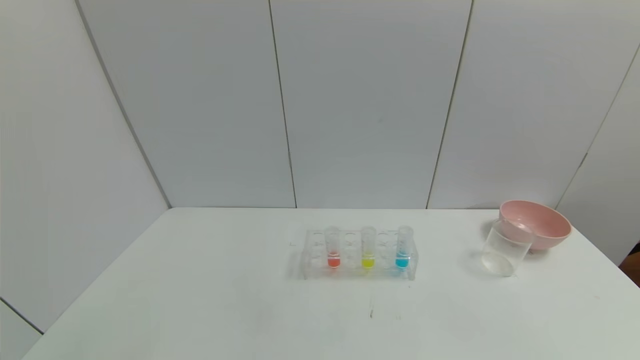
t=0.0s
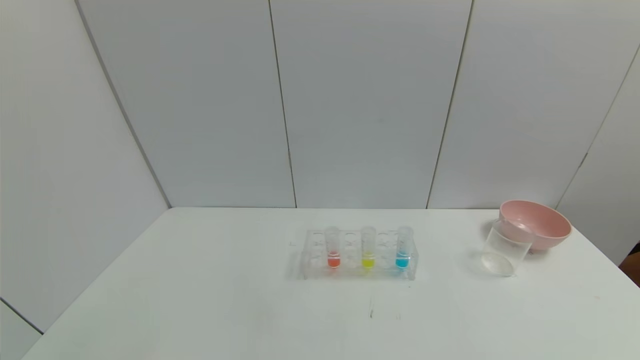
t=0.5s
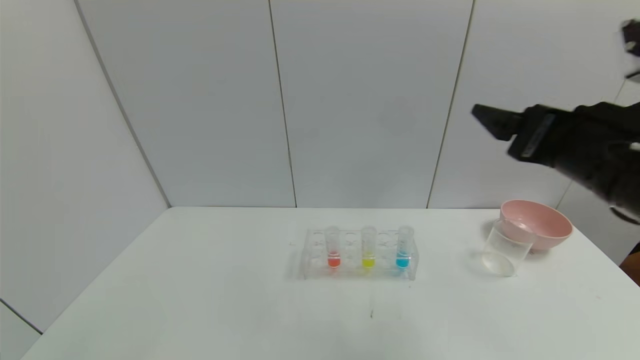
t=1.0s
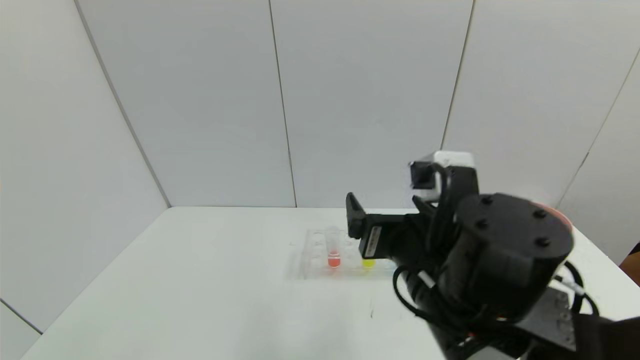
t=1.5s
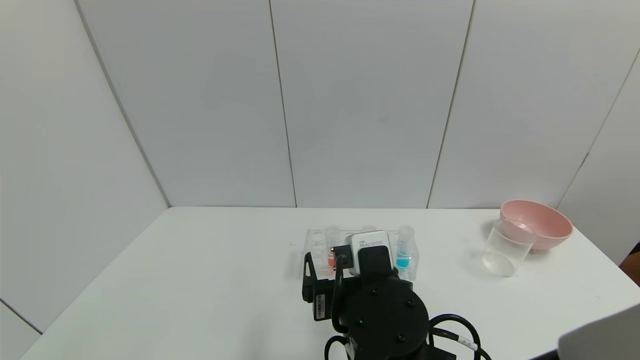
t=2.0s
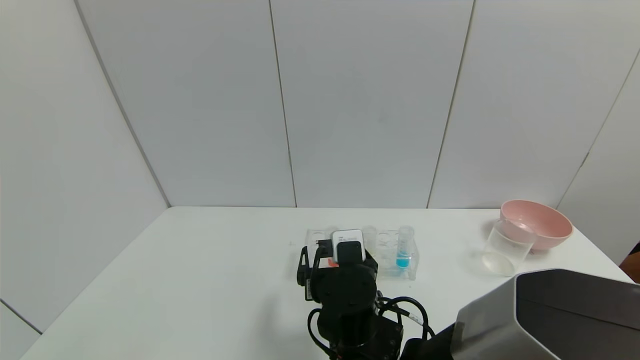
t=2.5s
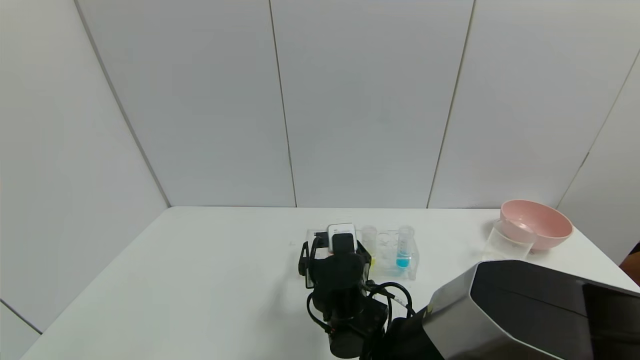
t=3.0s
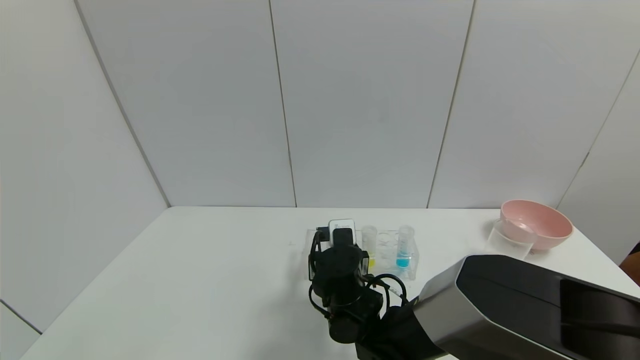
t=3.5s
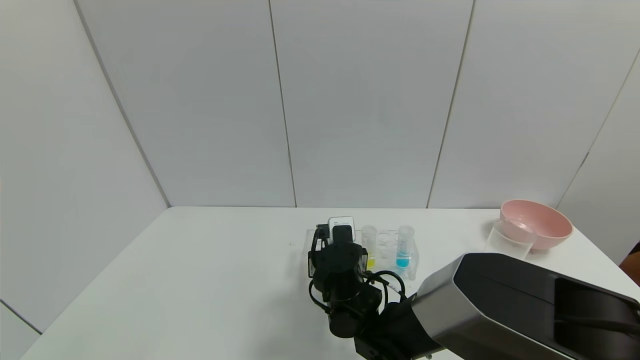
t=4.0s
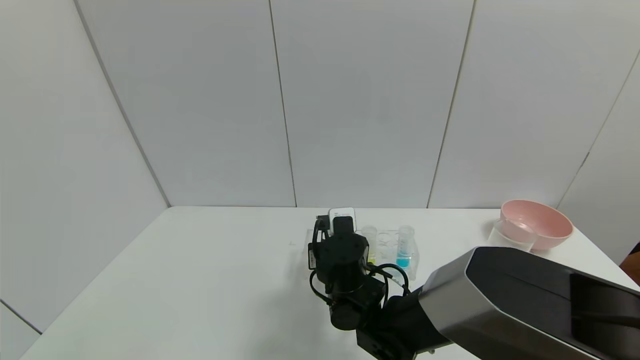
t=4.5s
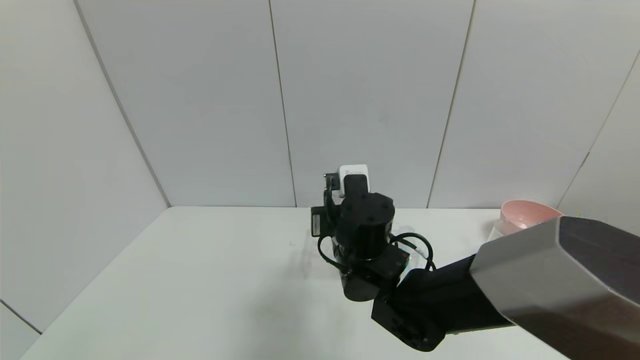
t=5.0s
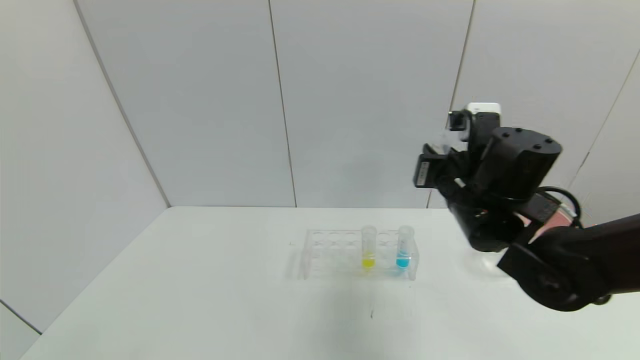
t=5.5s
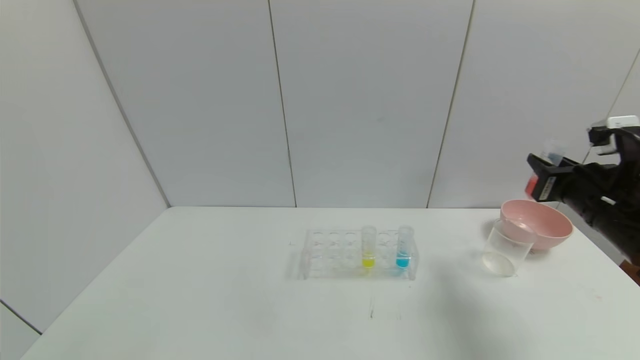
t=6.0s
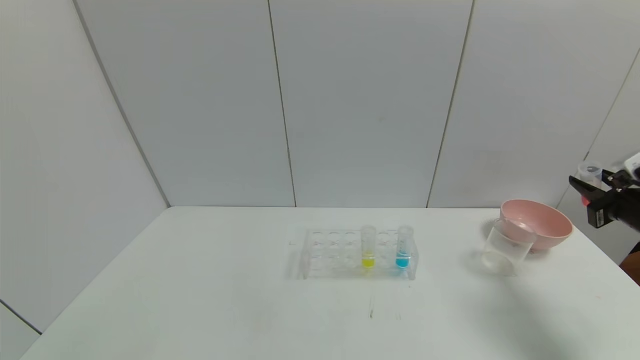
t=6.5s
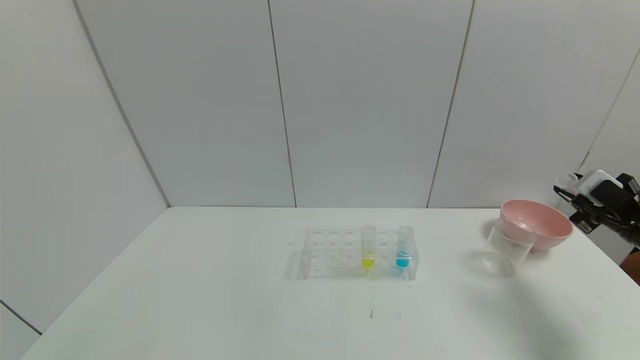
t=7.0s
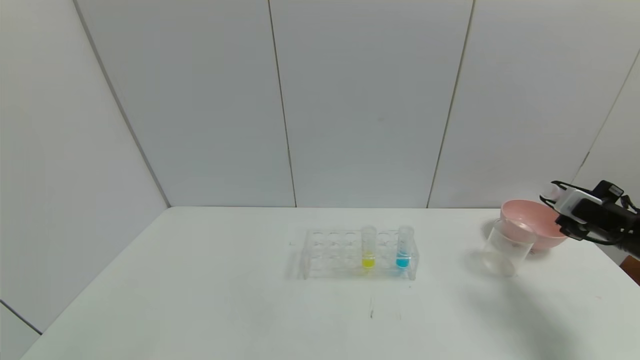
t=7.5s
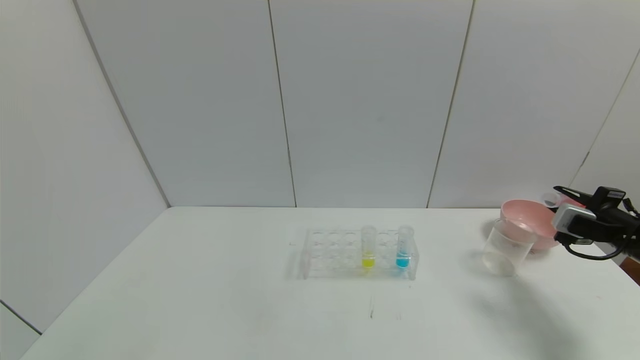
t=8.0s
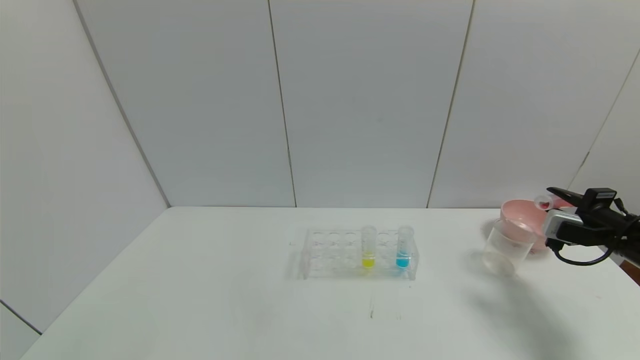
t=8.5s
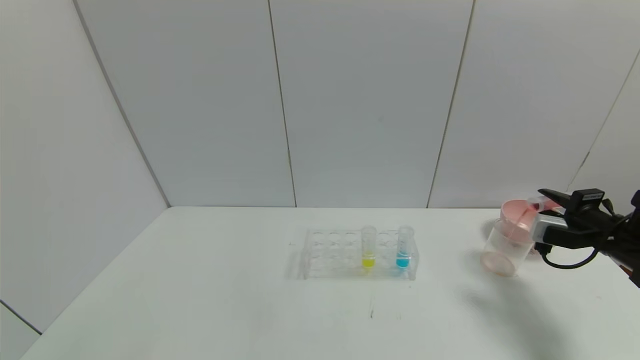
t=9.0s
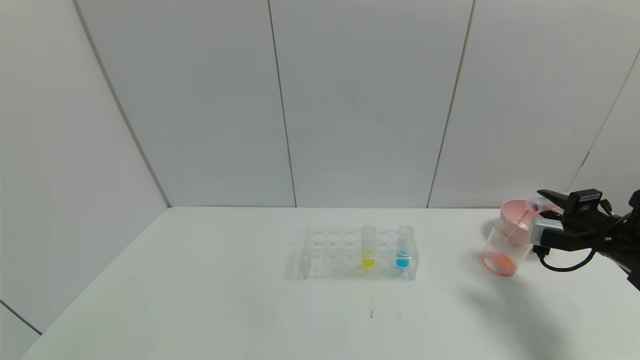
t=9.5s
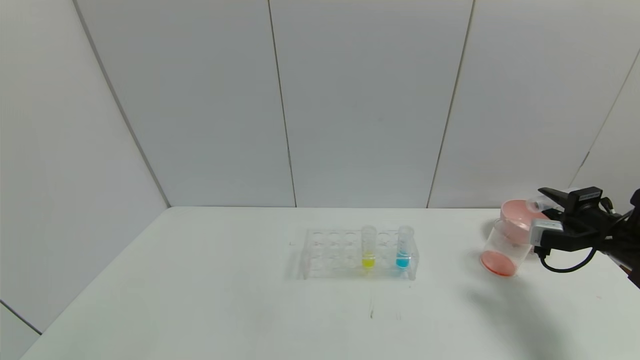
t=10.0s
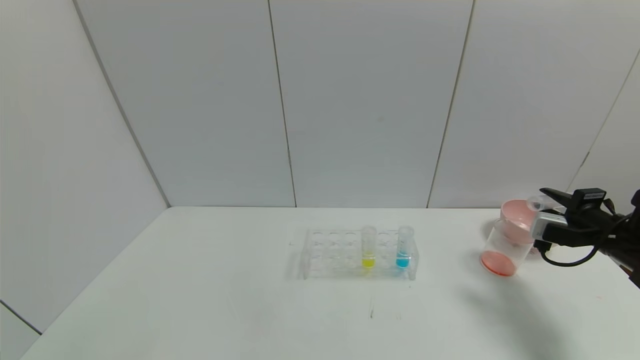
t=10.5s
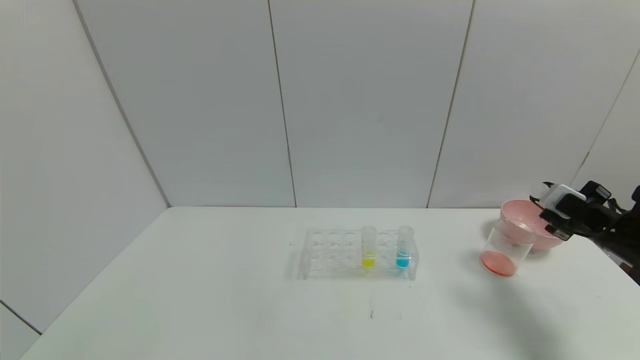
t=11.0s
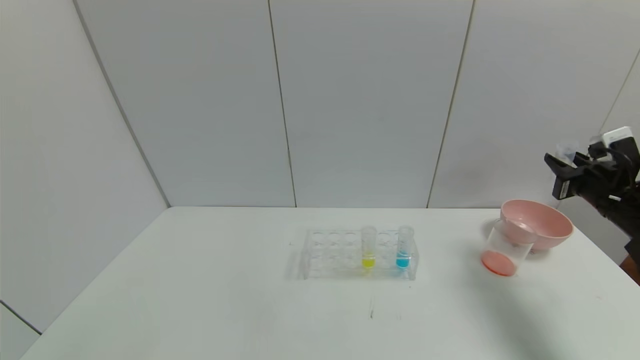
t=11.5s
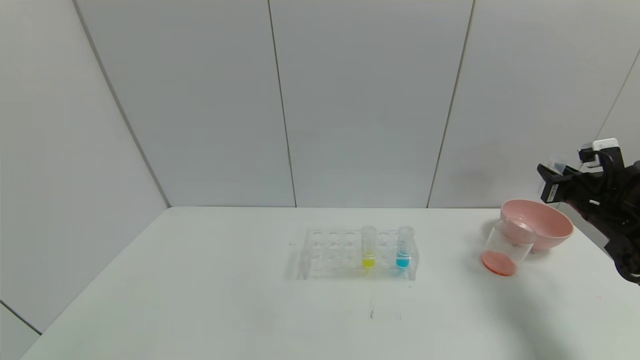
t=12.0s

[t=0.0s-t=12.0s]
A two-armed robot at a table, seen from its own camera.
Task of the whole recording: pick up the test tube with yellow pigment and the test tube with red pigment by grippers and pour them into the beaker.
Step, t=0.0s to t=5.5s: Pick up the test tube containing the red reagent with right gripper.
Step, t=6.0s to t=11.5s: Pour the red reagent into the graduated cylinder with right gripper.
t=0.0s to t=2.0s: The right gripper shifts about 40 cm to the left and forward.
t=2.0s to t=4.0s: The right gripper moves forward and downward, approximately 15 cm, and closes up.
t=4.0s to t=6.0s: The right gripper moves to the right and upward, approximately 40 cm.
t=6.0s to t=8.0s: The right gripper heads to the right and downward, covering approximately 10 cm.
t=8.0s to t=10.0s: The grippers move only a little.
t=10.0s to t=12.0s: The right gripper moves approximately 5 cm.

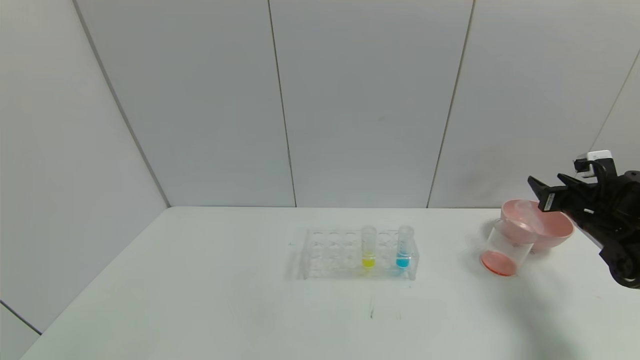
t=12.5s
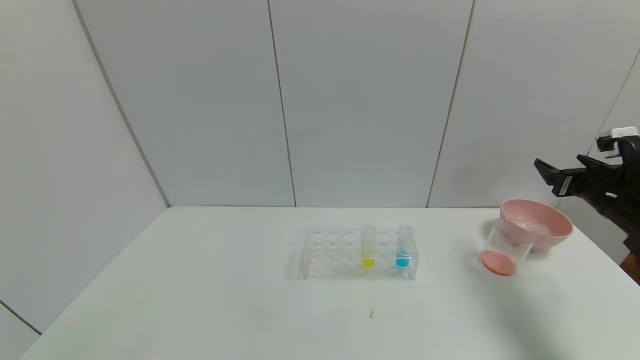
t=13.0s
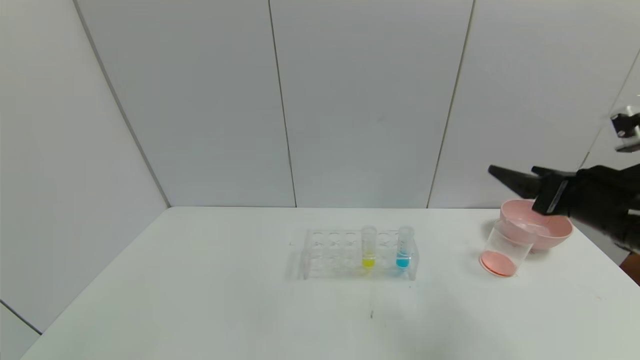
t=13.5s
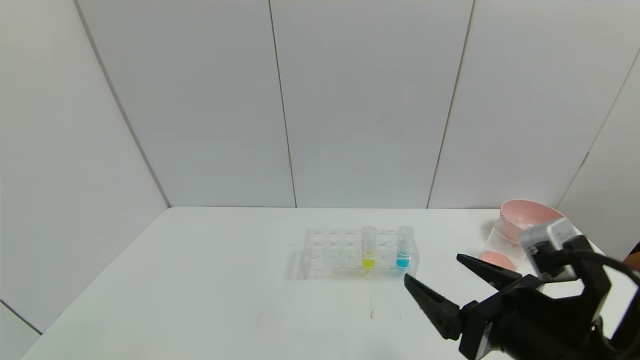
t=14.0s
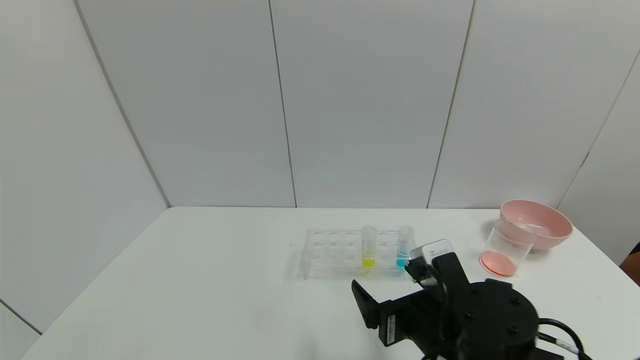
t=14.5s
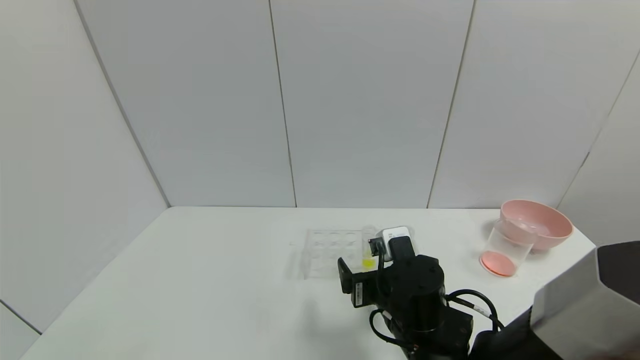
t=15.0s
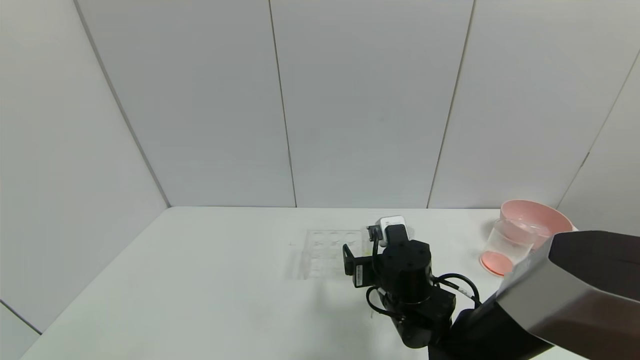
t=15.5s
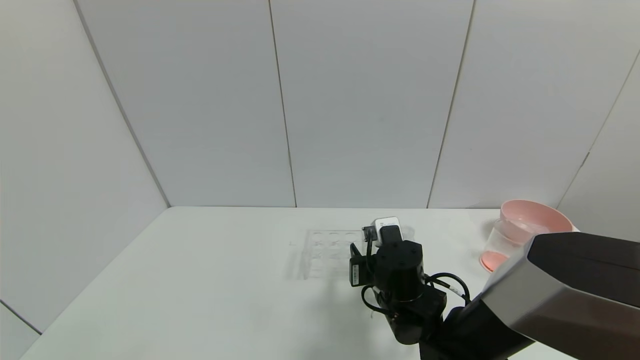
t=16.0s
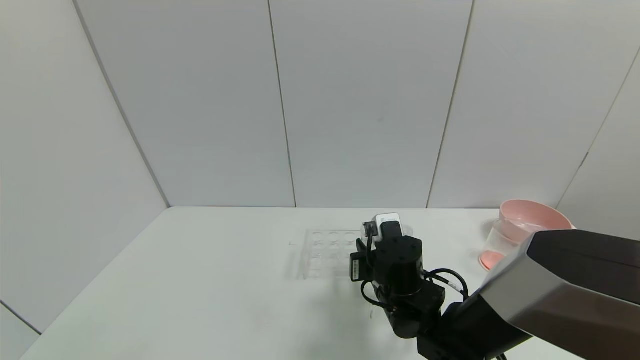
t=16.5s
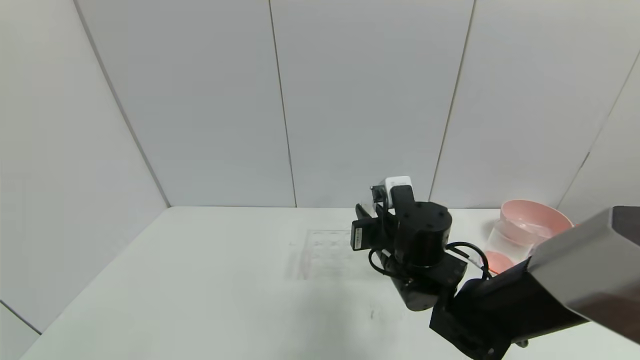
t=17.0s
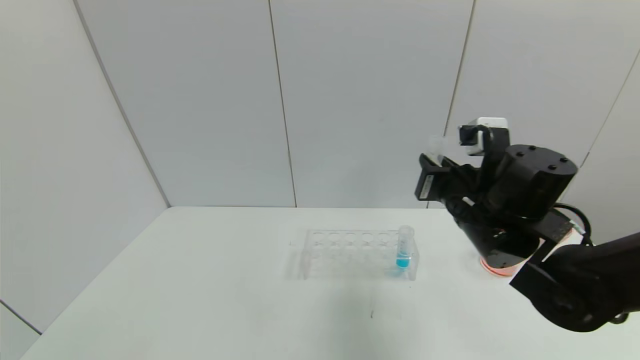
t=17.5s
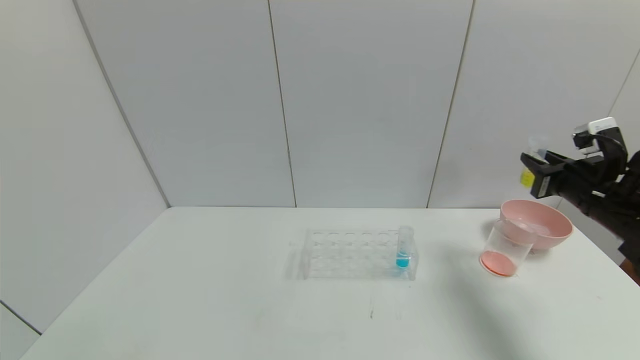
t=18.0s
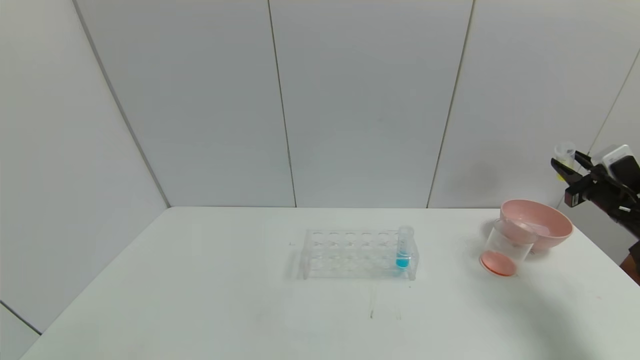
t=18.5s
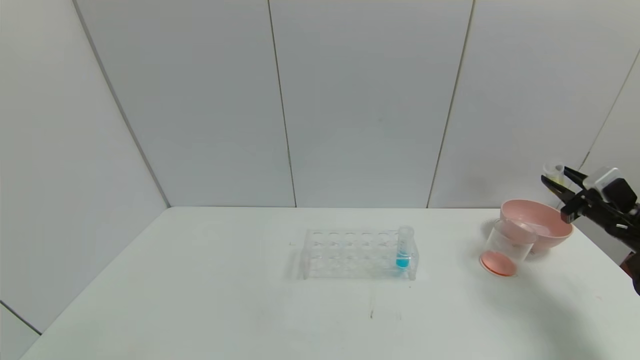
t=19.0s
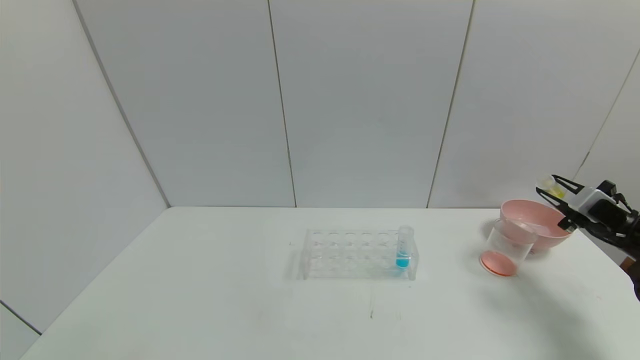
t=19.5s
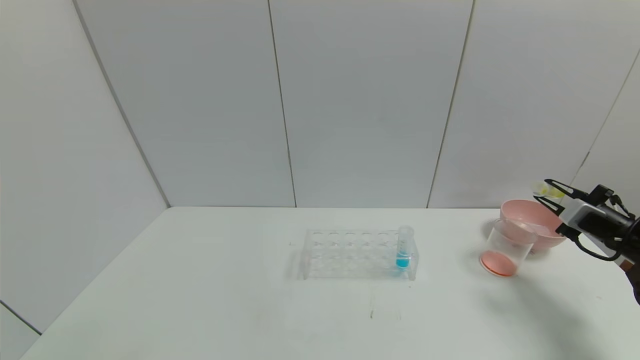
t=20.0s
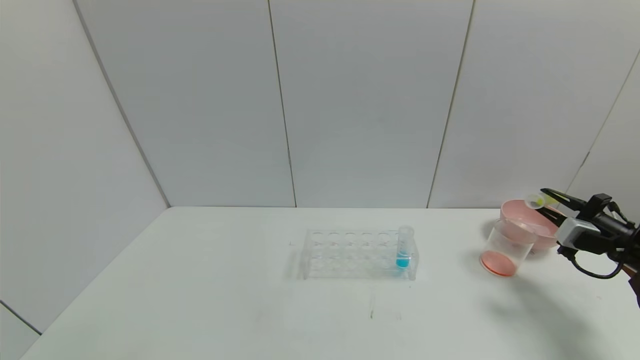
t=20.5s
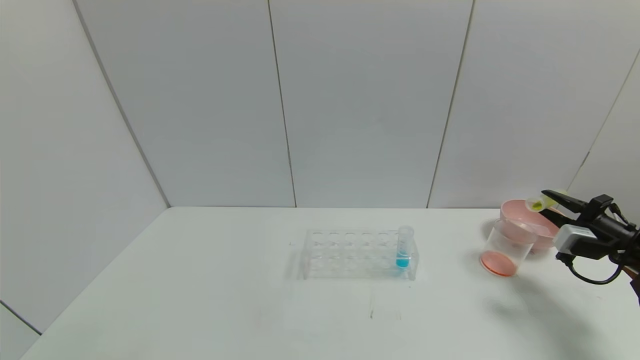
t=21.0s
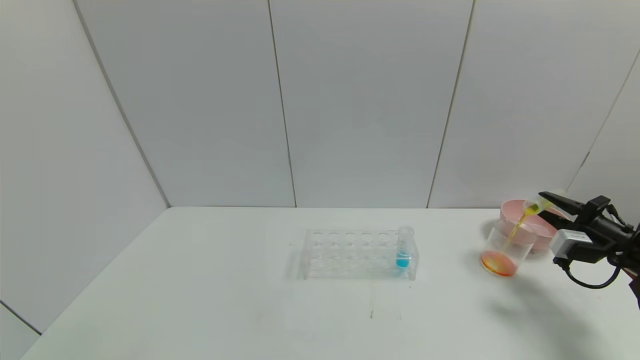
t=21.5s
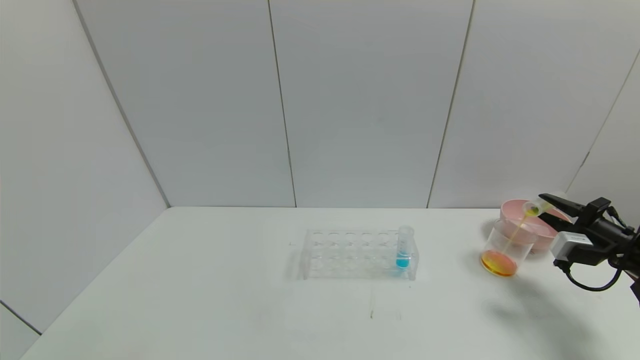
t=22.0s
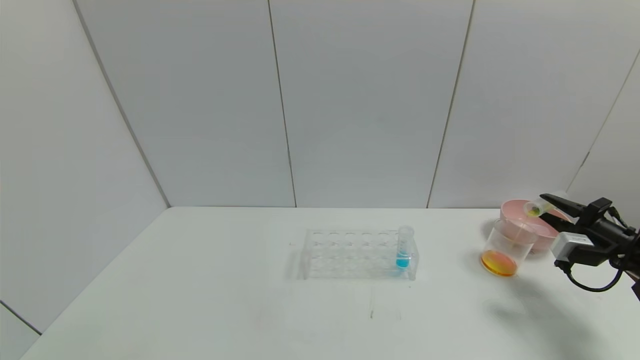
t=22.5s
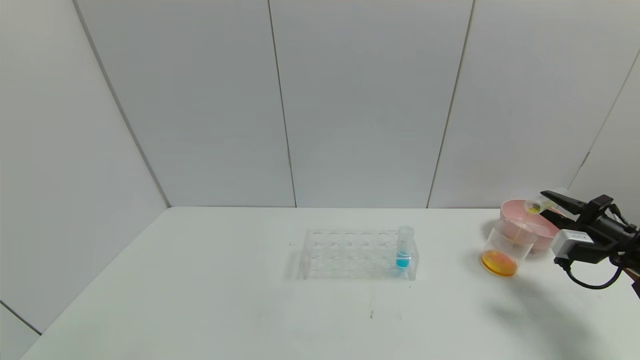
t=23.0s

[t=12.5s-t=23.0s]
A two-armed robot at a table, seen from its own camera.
Task of the whole recording: pick up the test tube with yellow pigment and the test tube with red pigment by grippers and pour them into the beaker.
Step, t=13.5s to t=17.5s: Pick up the test tube containing the yellow reagent with right gripper.
t=12.5s to t=14.5s: The right gripper goes approximately 35 cm to the left and backward, and opens.
t=14.5s to t=16.5s: The right gripper shifts some 10 cm forward, and closes.
t=16.5s to t=19.0s: The right gripper travels to the right by some 40 cm.
t=21.0s to t=23.0s: The two grippers keep their place.
